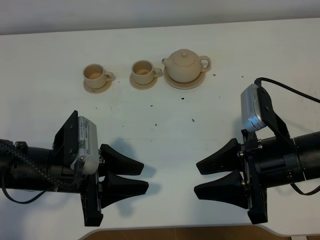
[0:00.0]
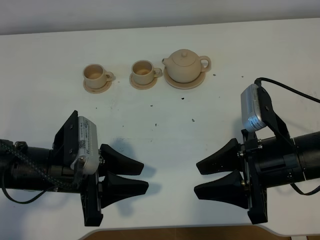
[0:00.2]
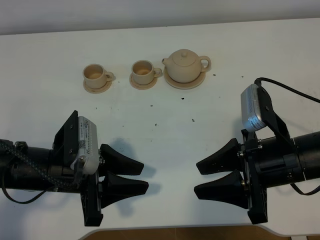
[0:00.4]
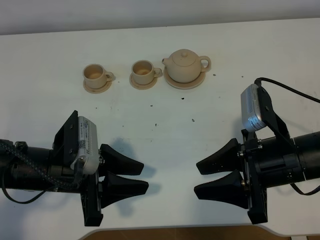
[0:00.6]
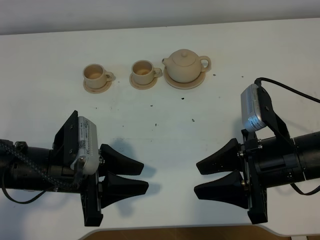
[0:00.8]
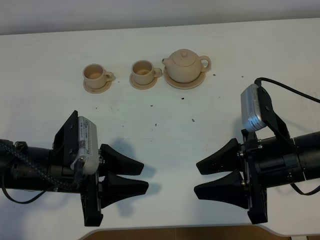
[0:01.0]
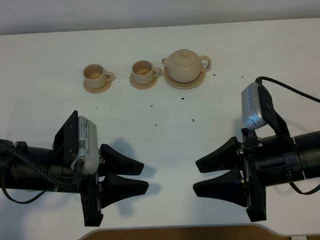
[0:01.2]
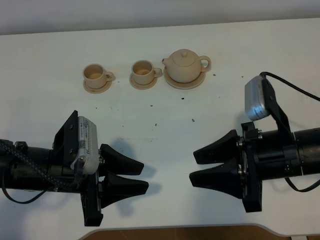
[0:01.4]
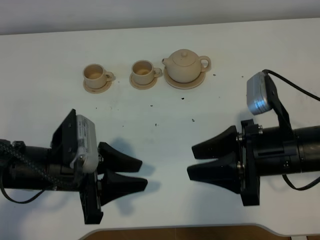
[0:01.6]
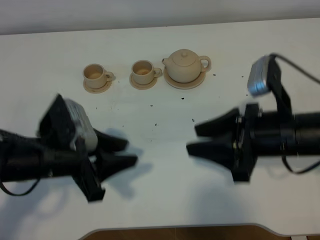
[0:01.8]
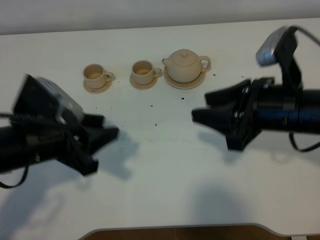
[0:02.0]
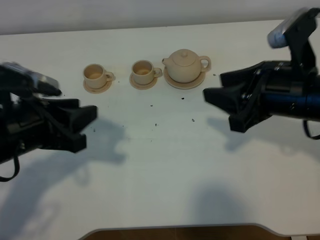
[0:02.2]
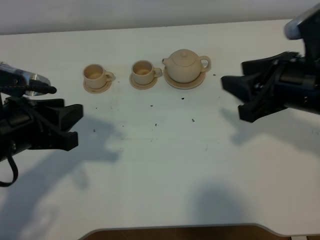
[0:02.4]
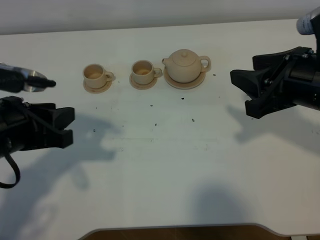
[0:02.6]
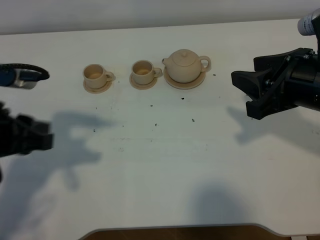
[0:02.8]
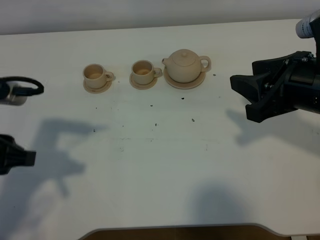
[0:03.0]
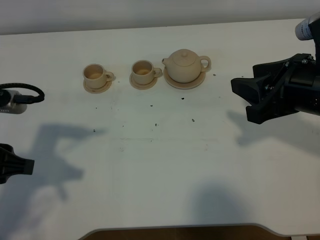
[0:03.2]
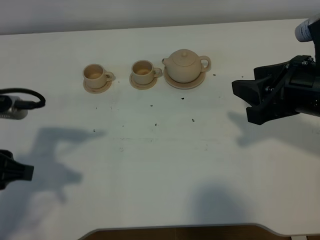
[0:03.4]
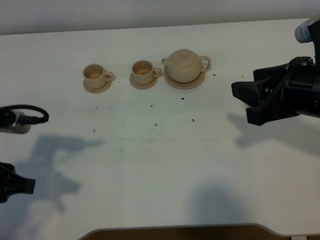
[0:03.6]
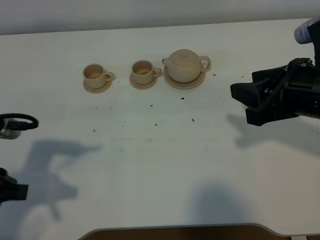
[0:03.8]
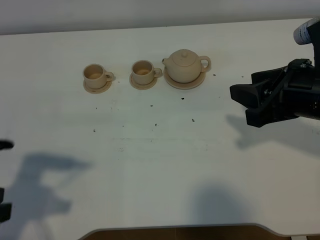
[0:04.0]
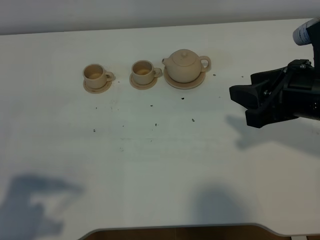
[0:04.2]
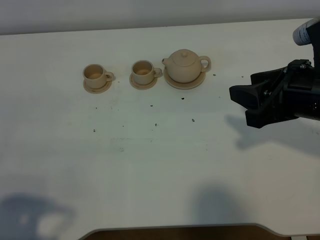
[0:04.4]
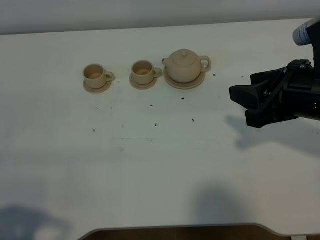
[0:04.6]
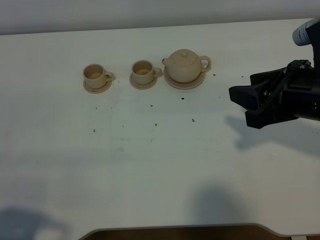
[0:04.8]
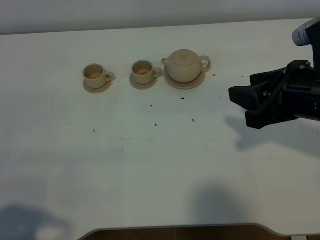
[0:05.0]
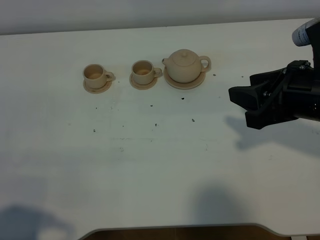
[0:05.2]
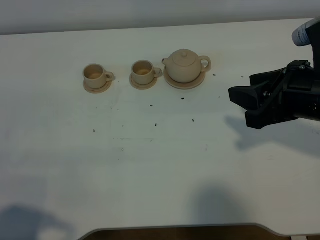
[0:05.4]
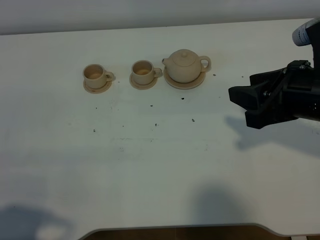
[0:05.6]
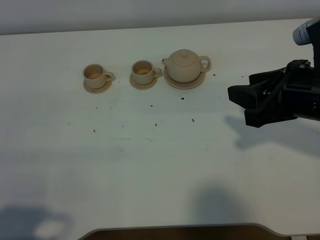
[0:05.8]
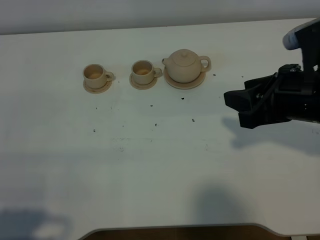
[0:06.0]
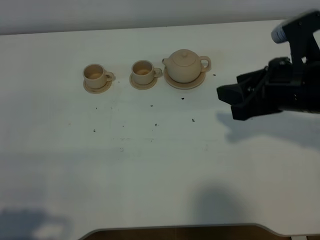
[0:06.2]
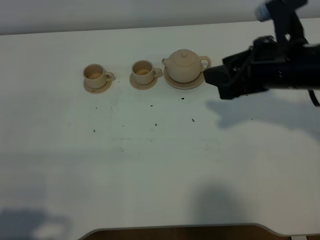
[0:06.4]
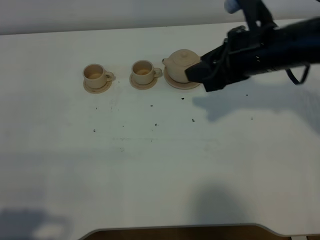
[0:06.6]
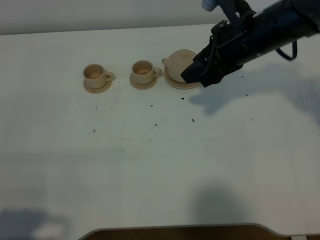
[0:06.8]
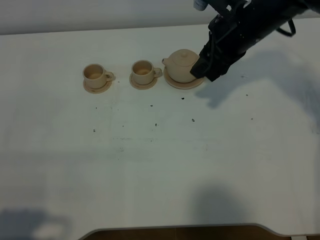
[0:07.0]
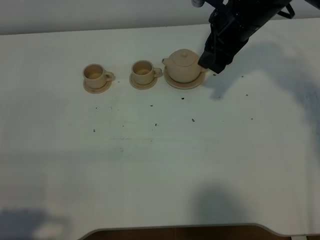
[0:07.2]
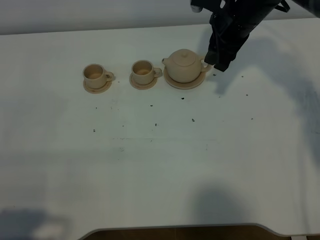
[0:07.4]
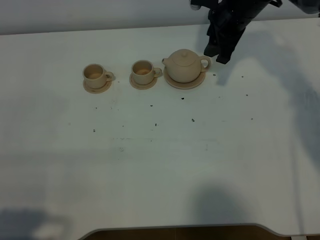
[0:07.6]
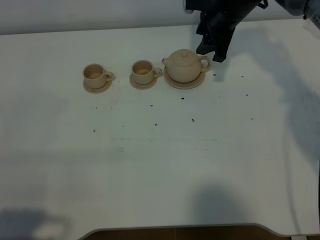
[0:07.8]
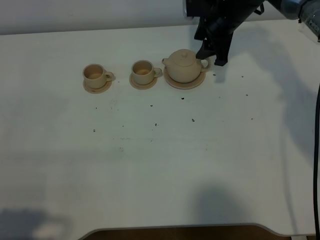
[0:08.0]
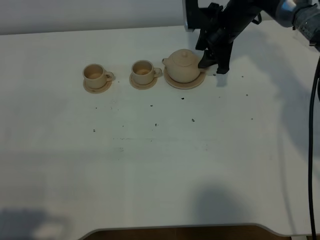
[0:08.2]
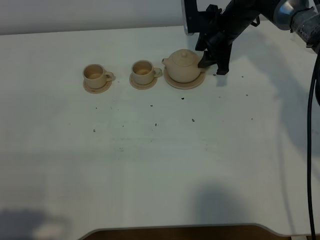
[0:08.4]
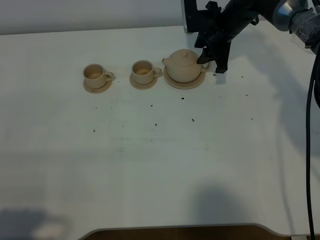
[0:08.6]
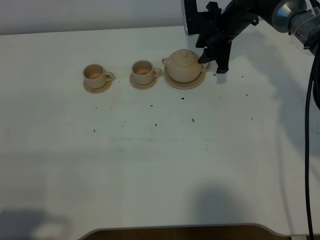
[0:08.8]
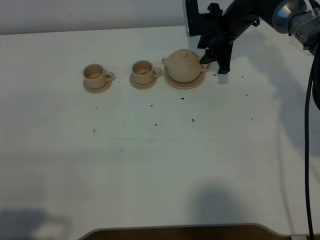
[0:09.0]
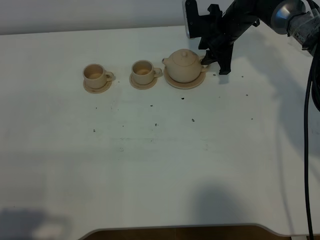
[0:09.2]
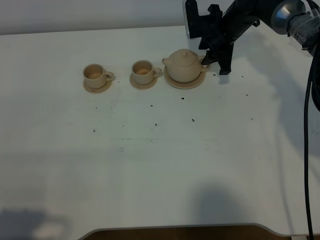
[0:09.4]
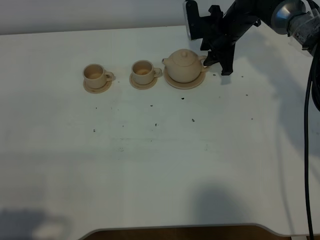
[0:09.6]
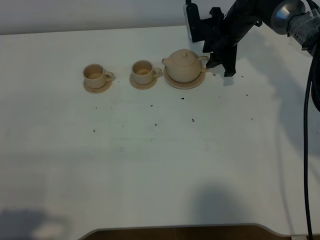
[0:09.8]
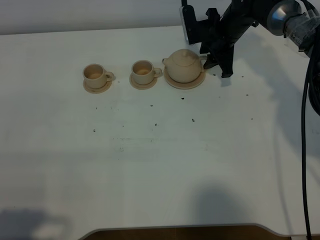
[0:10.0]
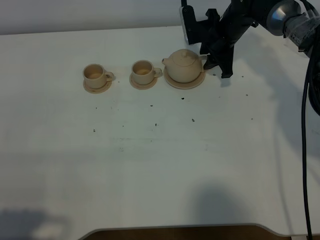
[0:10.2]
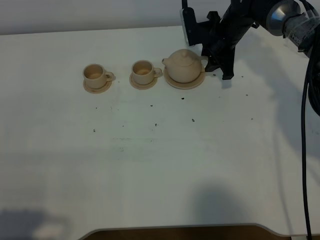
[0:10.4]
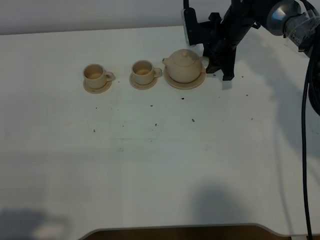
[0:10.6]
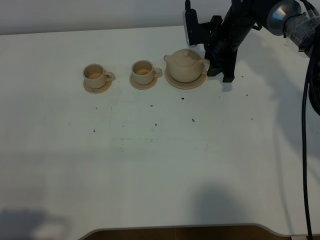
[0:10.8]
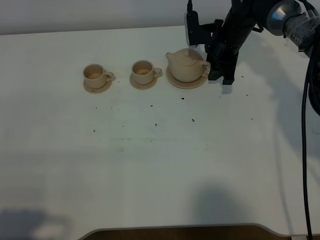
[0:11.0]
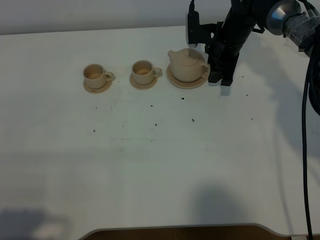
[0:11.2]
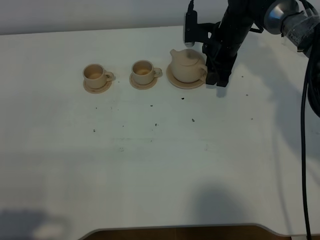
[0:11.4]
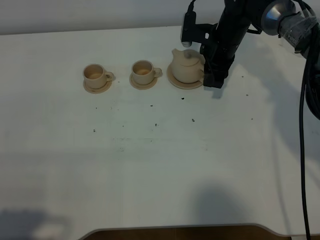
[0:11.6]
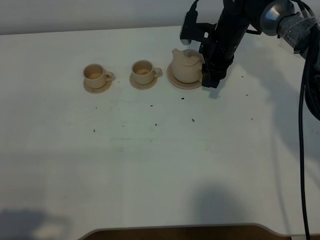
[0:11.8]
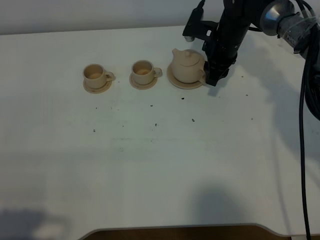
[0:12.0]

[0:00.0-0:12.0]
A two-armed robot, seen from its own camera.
Task of the whole recording: grasp the brown teapot and pour the tea into the two brown teacups one by one, put the brown teapot back in its original place.
0:00.0 to 0:01.6: There are only small adjustments of the grippers.
0:01.6 to 0:03.0: The left gripper moves to the left and upward, about 10 cm. Meanwhile the right gripper moves upward, about 5 cm.
0:03.0 to 0:04.4: The left gripper heads backward, covering roughly 15 cm.
0:04.4 to 0:06.0: The grippers make only small movements.
0:06.0 to 0:07.6: The right gripper moves forward, some 25 cm.
0:07.6 to 0:09.0: The right gripper moves downward, some 10 cm.
0:09.0 to 0:10.4: The grippers stay close to where they were, moving slightly.

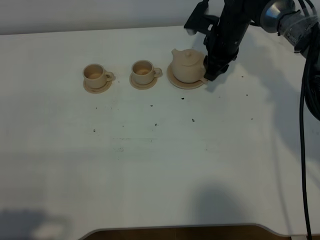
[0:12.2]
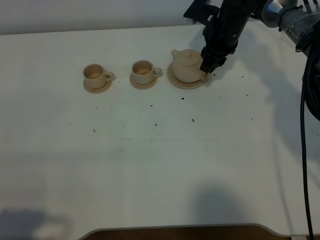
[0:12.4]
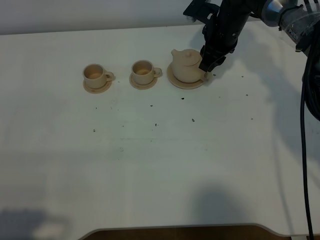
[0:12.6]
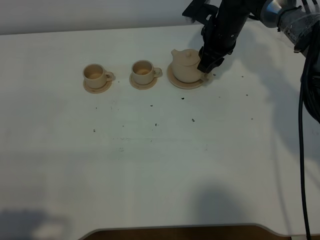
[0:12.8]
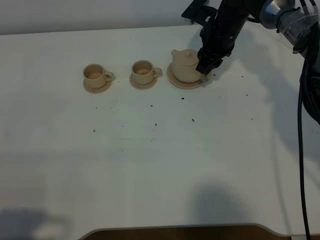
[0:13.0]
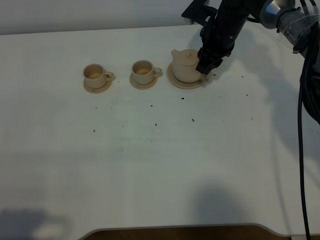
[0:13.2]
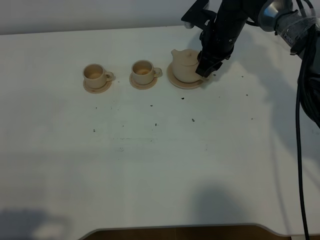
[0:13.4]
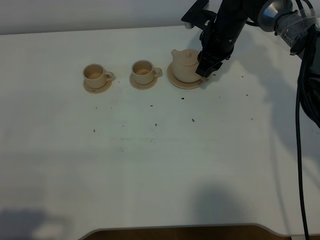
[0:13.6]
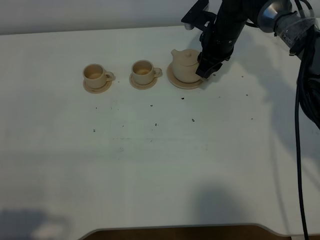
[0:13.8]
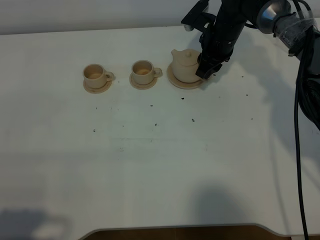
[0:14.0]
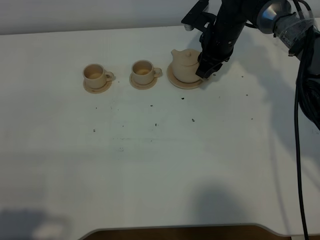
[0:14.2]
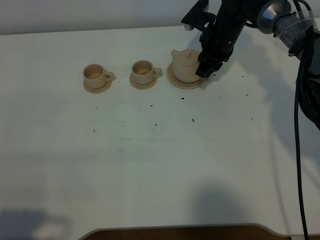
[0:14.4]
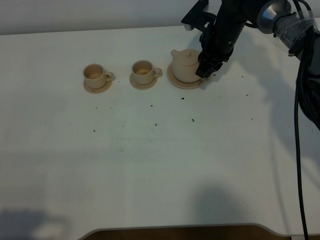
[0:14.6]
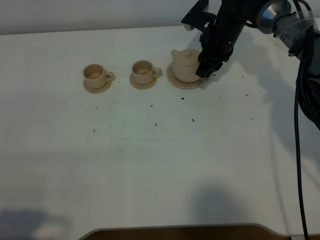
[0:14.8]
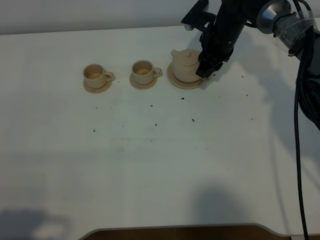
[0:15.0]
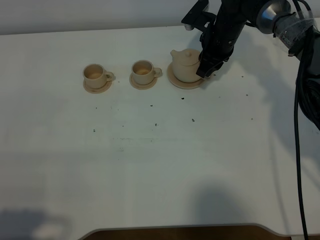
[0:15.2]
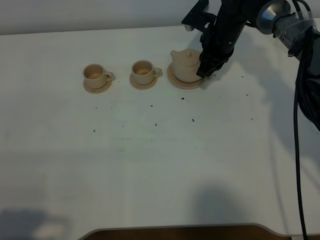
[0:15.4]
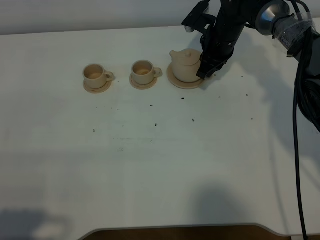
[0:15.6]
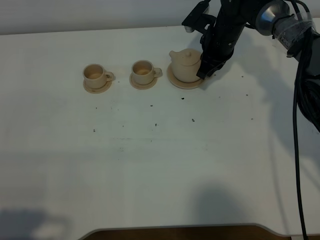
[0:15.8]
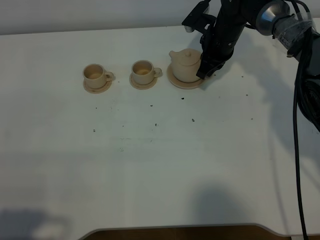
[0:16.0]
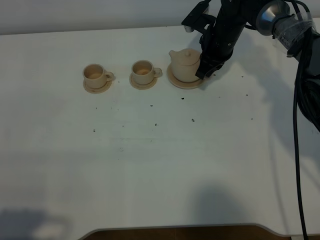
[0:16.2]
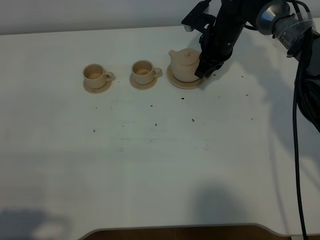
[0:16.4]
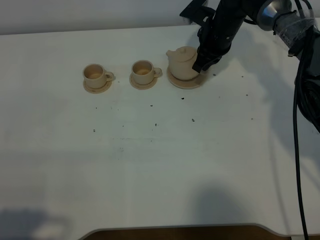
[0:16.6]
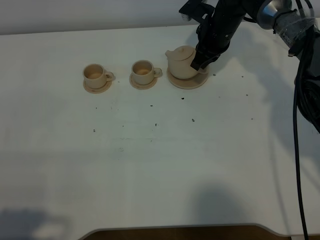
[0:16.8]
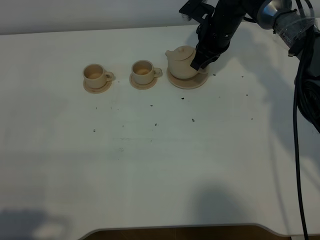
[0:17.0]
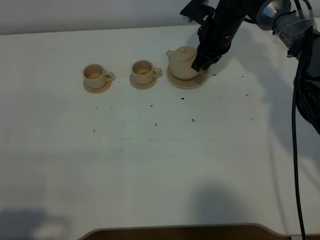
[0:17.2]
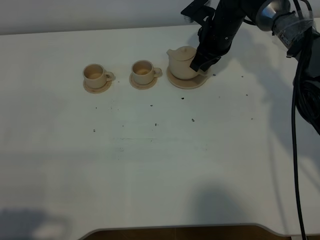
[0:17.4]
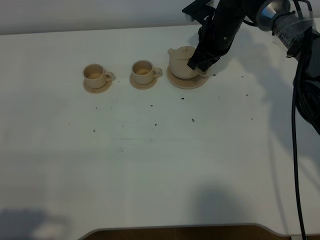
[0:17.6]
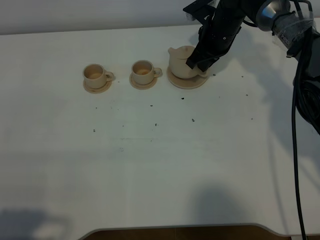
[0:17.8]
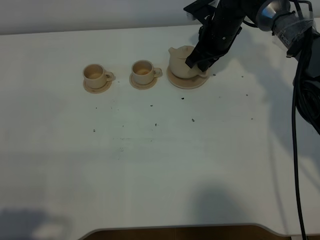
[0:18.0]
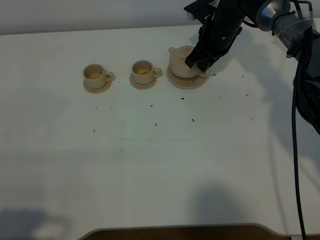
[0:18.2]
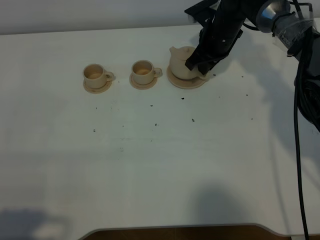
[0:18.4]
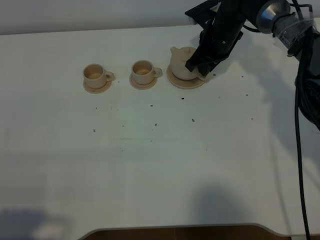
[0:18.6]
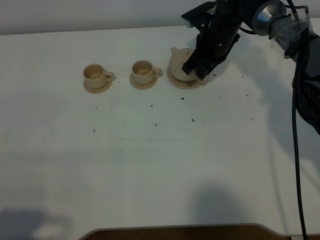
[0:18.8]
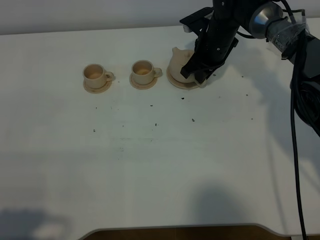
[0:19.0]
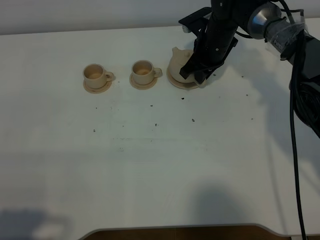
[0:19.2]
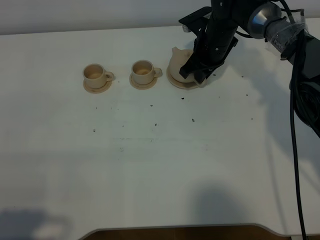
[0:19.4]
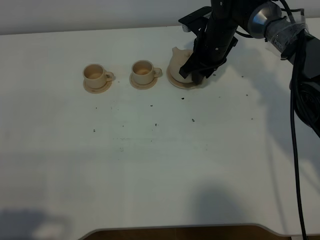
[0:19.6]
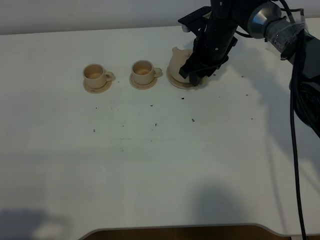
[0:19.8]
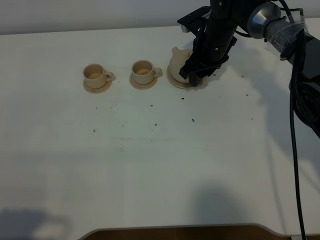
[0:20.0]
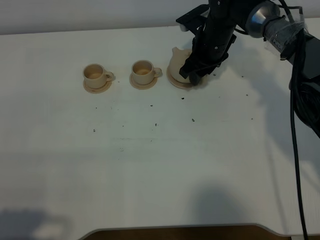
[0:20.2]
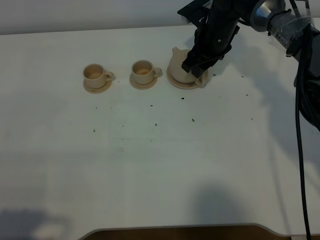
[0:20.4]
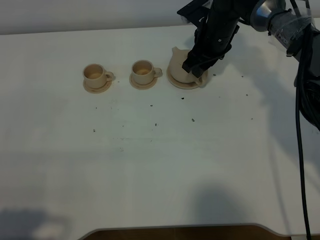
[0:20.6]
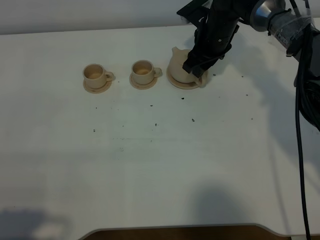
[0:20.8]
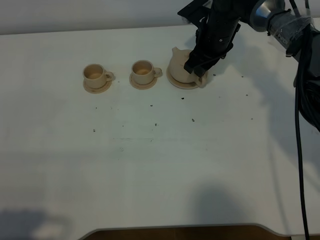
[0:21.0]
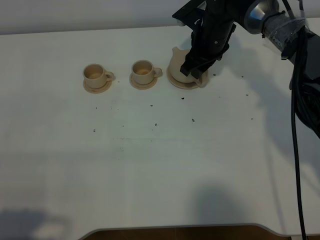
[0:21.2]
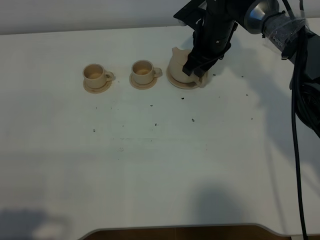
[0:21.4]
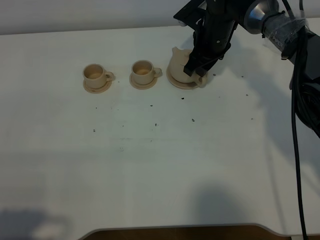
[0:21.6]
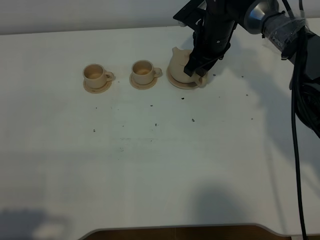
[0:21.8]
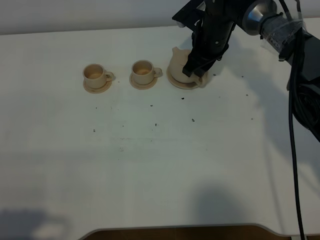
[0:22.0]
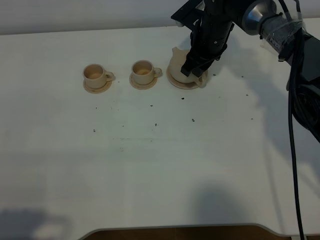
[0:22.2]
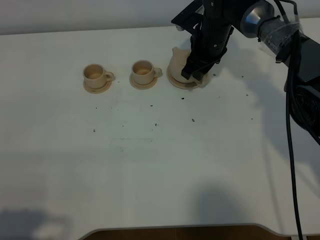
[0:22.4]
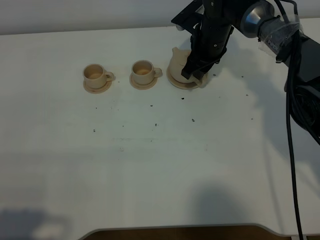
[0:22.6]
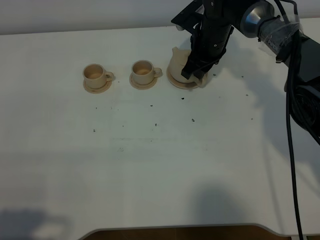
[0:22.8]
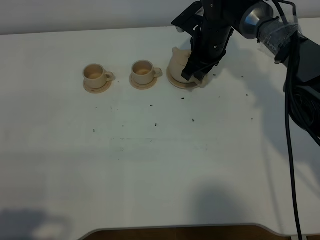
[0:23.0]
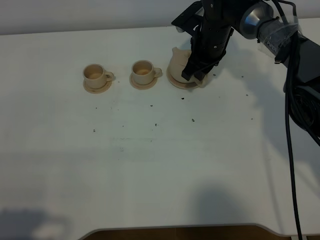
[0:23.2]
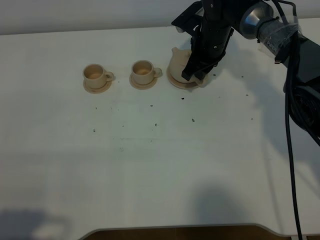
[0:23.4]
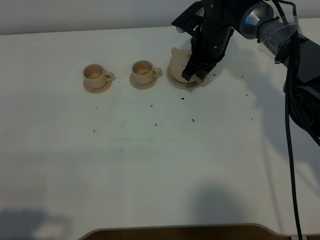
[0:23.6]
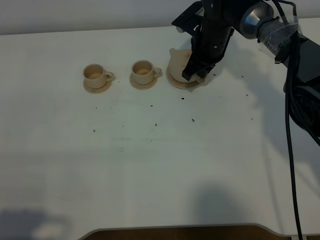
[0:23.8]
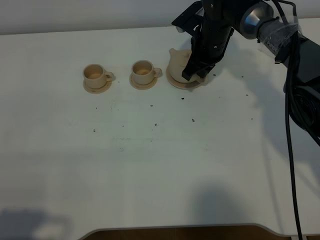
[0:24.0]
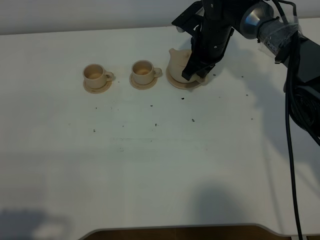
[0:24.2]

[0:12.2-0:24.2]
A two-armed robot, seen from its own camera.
Task of the whole recording: grasp the brown teapot and pour the tea into the two brown teacups one by one, put the brown teapot back in its original place.
0:12.2 to 0:13.8: The grippers stay close to where they were, moving slightly.
0:13.8 to 0:15.2: Both grippers stay about where they are.
0:15.2 to 0:16.6: The right gripper closes up.
0:16.6 to 0:18.2: There are only small adjustments of the grippers.
0:18.2 to 0:19.8: The right gripper opens up.
0:19.8 to 0:21.2: The grippers stay close to where they were, moving slightly.
0:21.2 to 0:22.6: Both grippers stay put.
0:22.6 to 0:24.2: The right gripper closes up.
